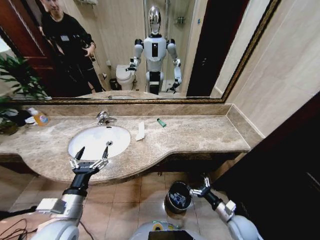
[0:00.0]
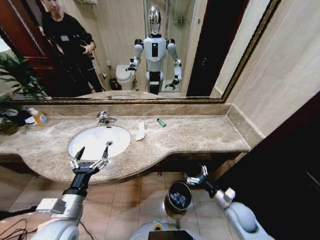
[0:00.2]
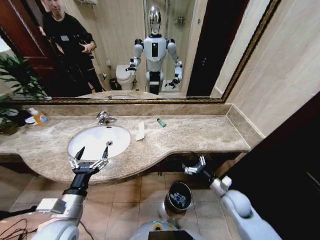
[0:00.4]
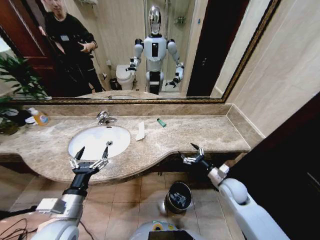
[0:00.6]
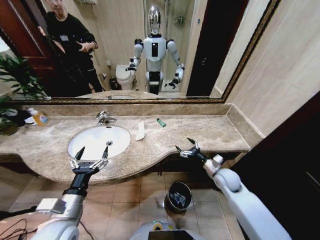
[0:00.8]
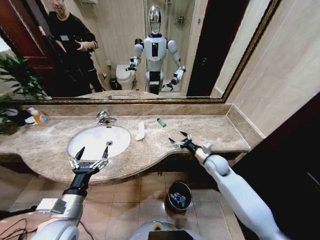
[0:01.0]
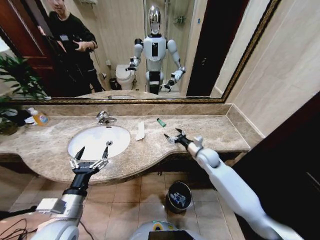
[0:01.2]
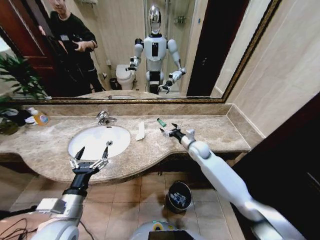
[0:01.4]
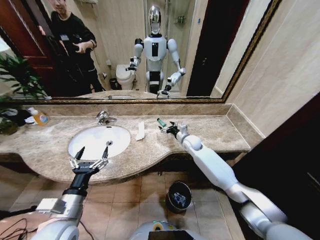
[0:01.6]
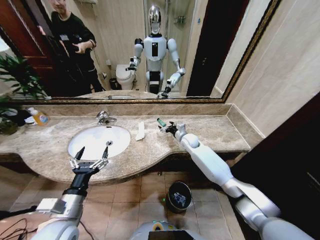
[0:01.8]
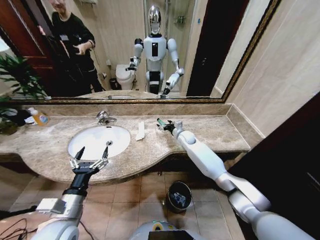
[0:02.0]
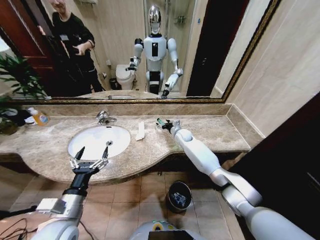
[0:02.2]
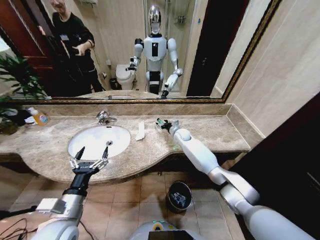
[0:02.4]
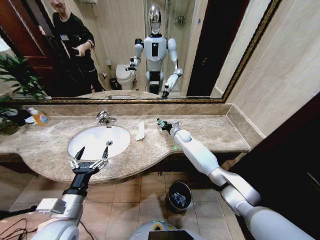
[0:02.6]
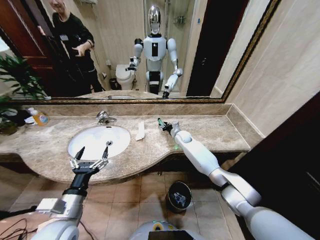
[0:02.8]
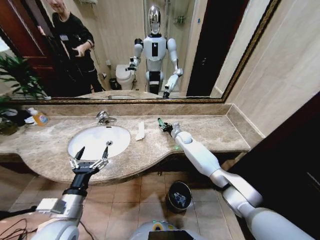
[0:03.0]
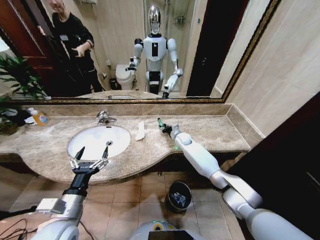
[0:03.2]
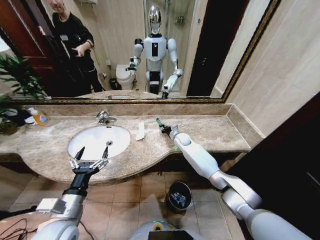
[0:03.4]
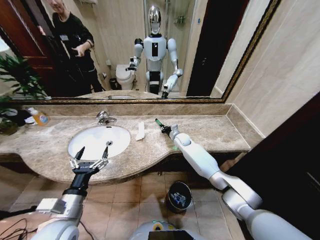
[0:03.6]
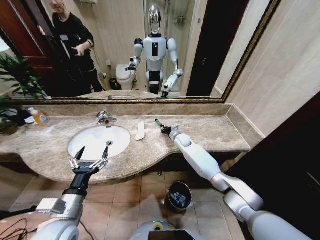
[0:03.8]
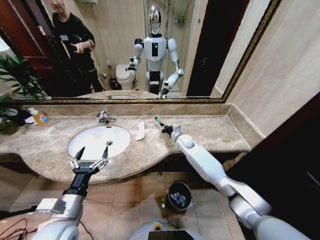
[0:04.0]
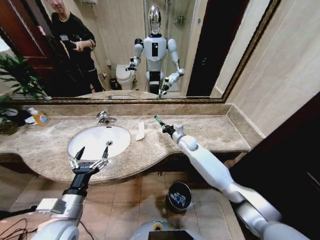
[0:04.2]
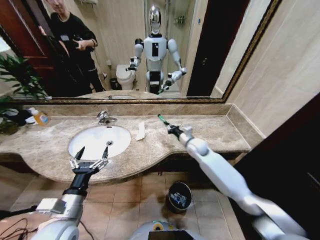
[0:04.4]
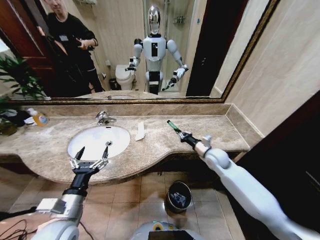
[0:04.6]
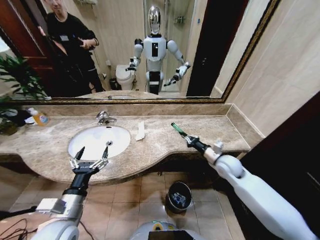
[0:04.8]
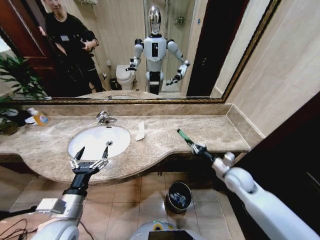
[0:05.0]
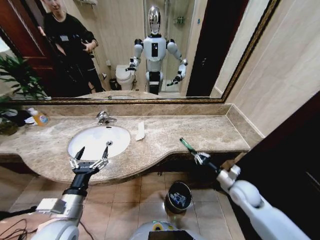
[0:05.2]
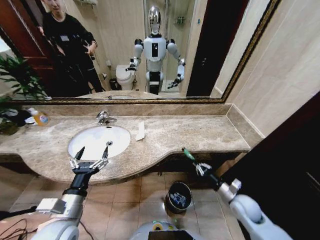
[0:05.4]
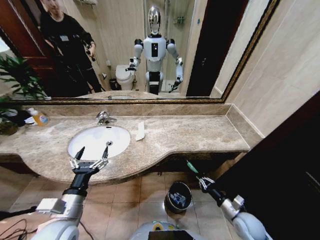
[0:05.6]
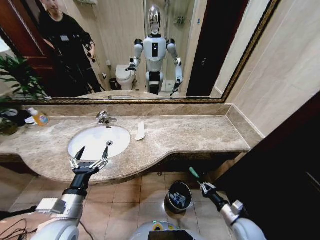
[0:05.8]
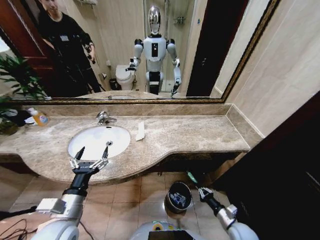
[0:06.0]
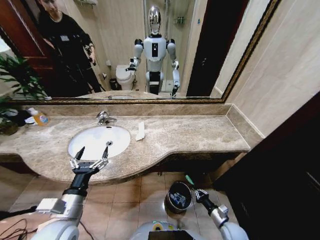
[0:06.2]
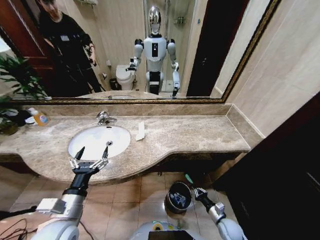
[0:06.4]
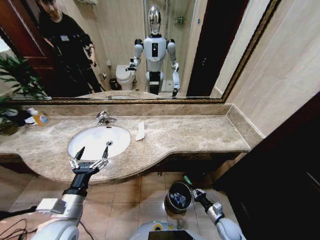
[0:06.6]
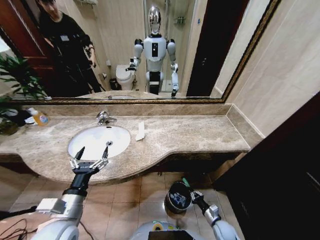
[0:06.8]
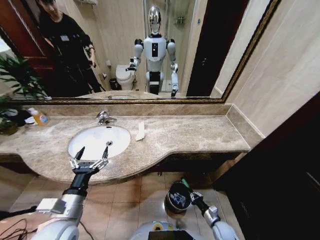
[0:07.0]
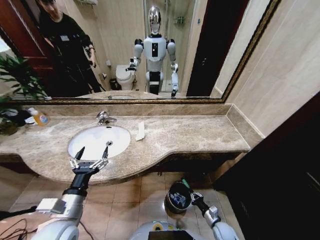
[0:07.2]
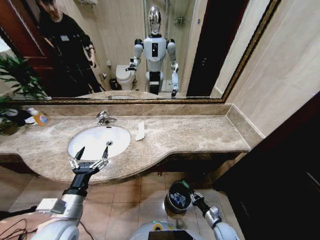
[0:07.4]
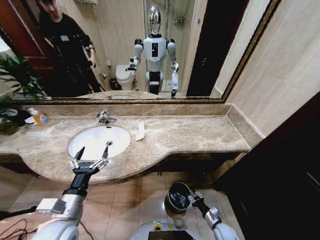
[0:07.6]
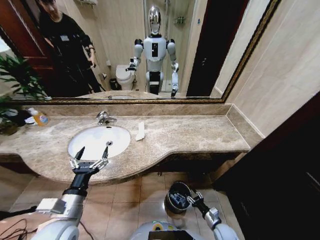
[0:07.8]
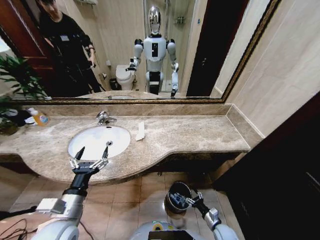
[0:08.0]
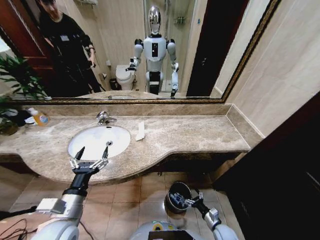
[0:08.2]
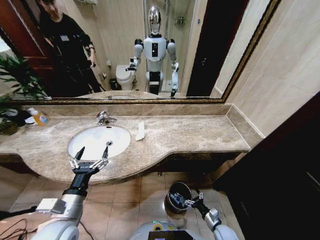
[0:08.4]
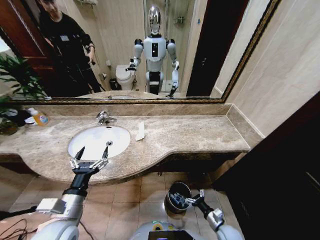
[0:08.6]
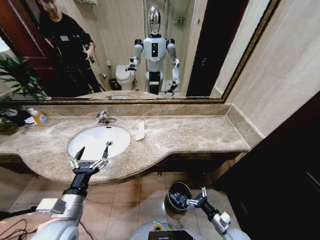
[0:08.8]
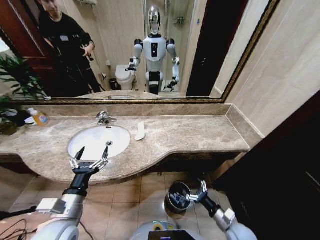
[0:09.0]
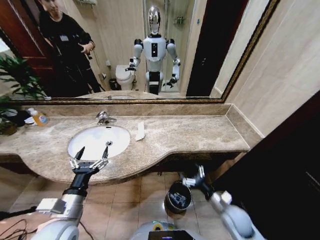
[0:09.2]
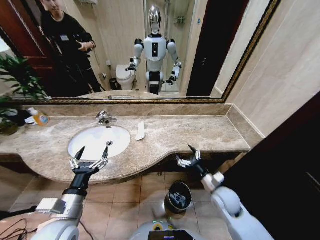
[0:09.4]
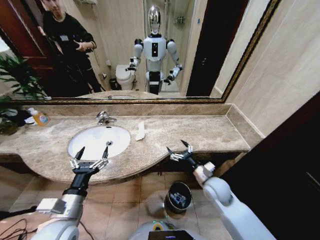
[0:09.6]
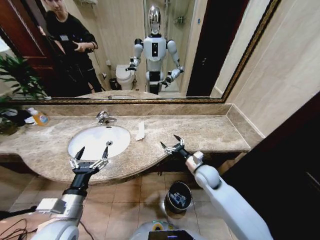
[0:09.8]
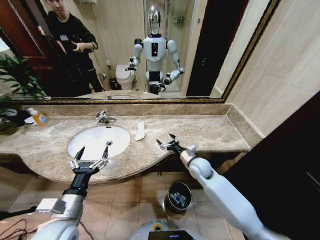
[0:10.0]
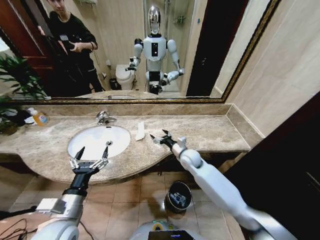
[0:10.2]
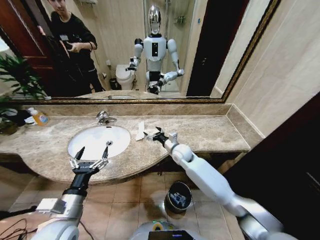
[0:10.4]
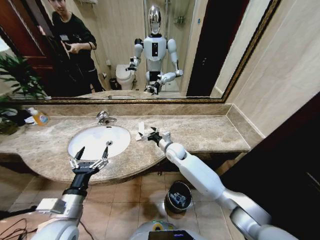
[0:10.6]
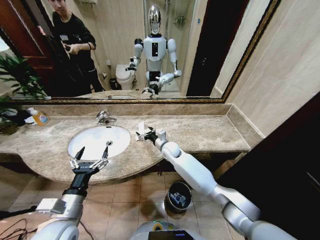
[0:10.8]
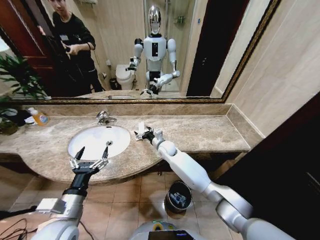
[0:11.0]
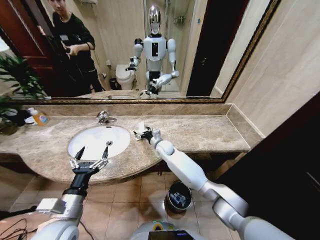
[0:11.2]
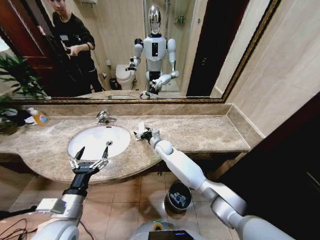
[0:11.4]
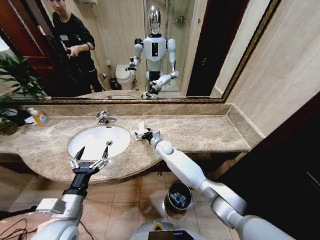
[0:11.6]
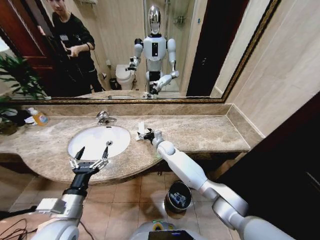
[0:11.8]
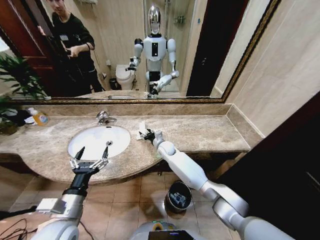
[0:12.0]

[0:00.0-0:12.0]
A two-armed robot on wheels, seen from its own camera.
Task of the whole recording: Pick up the trash from the sink and place it in the trash bin.
0:00.0 to 0:01.6: The right gripper moves forward, upward and to the left, approximately 40 cm.
0:01.6 to 0:03.0: The right gripper travels forward by some 5 cm, and closes.
0:03.0 to 0:04.4: The right gripper shifts some 15 cm backward and upward, and closes.
0:04.4 to 0:06.0: The right gripper heads backward, downward and to the right, covering approximately 40 cm.
0:06.0 to 0:07.6: The right gripper goes about 10 cm downward.
0:07.6 to 0:09.0: The right gripper shifts some 15 cm upward, and opens up.
0:09.0 to 0:10.4: The right gripper travels forward, to the left and upward by some 40 cm.
0:10.4 to 0:12.0: The right gripper travels to the left and forward by roughly 10 cm.

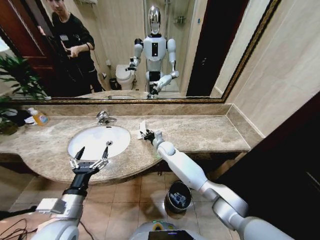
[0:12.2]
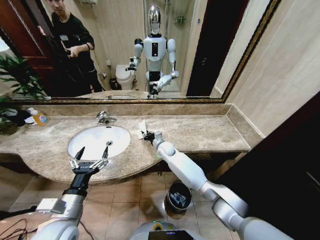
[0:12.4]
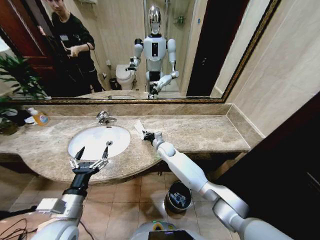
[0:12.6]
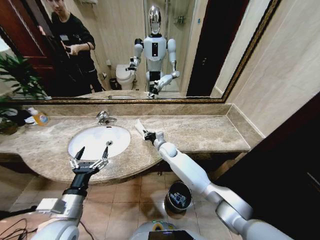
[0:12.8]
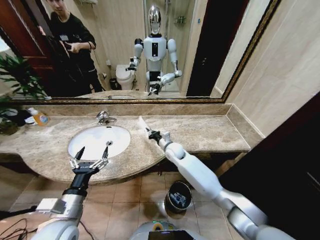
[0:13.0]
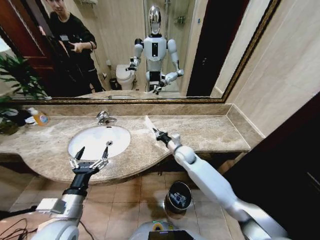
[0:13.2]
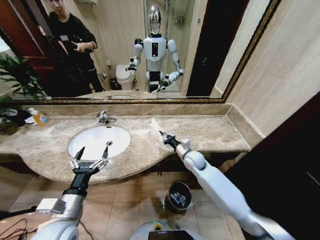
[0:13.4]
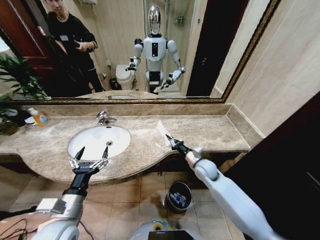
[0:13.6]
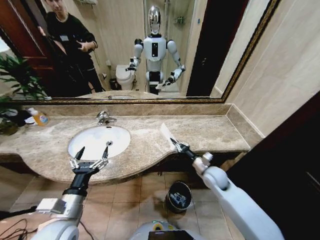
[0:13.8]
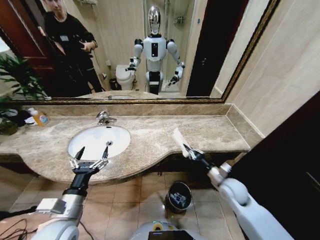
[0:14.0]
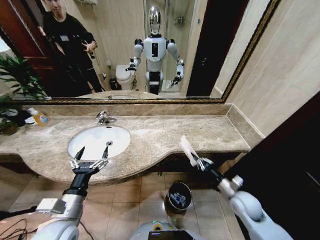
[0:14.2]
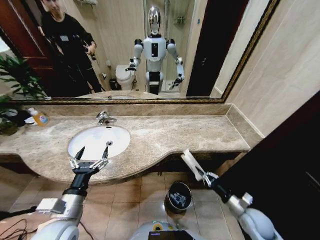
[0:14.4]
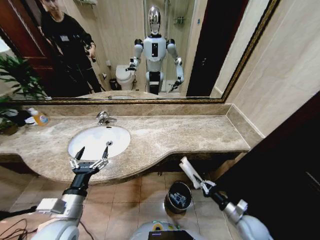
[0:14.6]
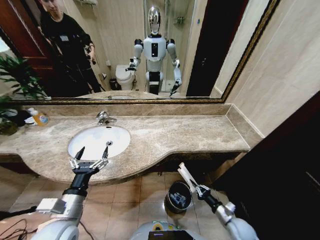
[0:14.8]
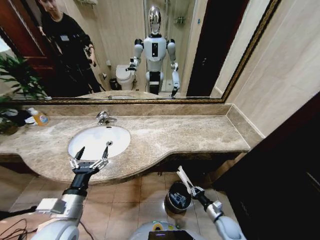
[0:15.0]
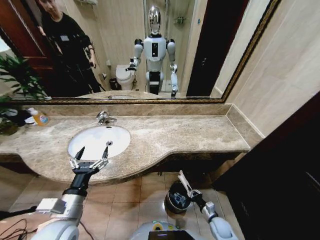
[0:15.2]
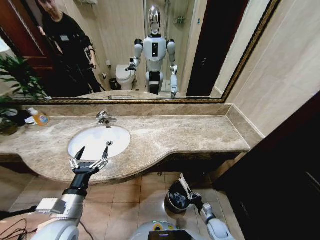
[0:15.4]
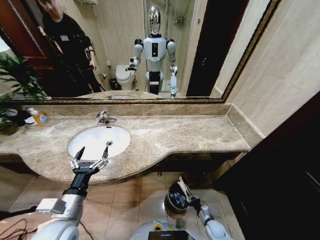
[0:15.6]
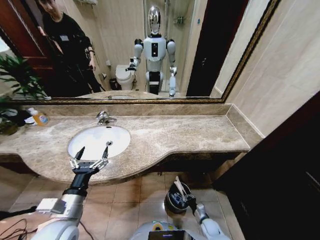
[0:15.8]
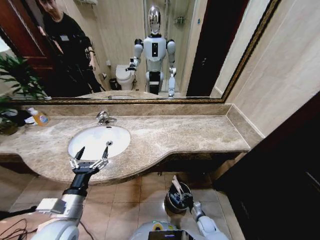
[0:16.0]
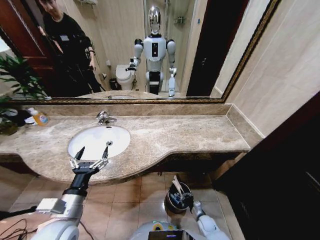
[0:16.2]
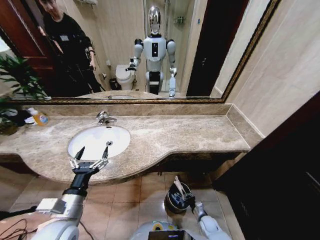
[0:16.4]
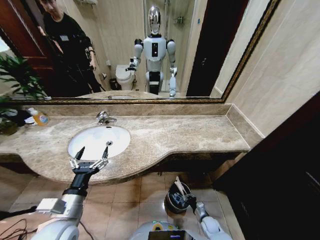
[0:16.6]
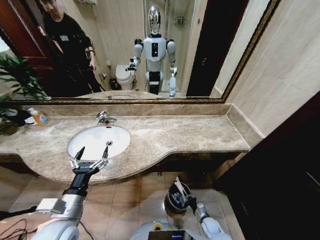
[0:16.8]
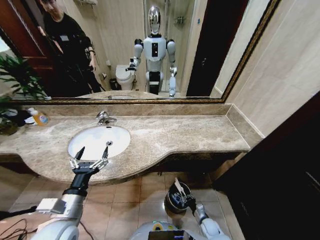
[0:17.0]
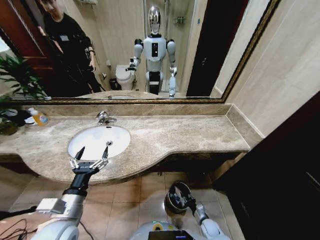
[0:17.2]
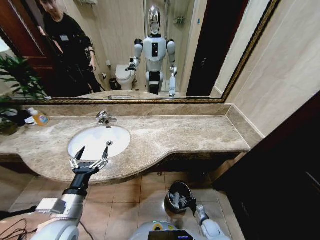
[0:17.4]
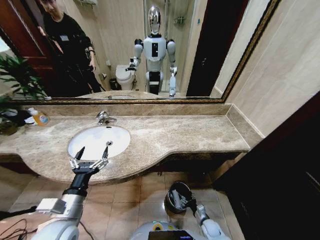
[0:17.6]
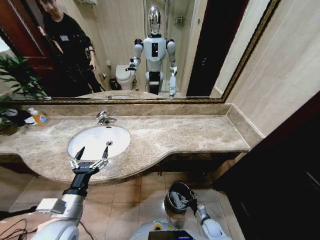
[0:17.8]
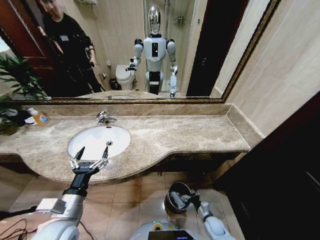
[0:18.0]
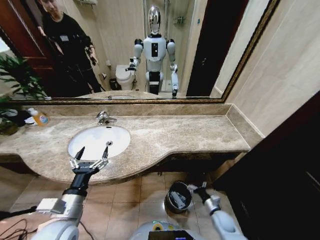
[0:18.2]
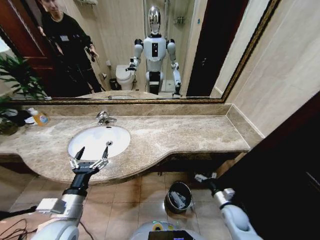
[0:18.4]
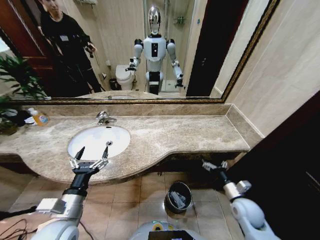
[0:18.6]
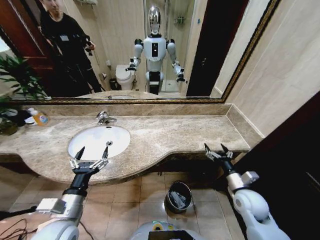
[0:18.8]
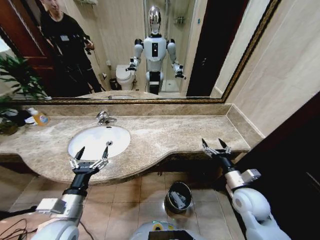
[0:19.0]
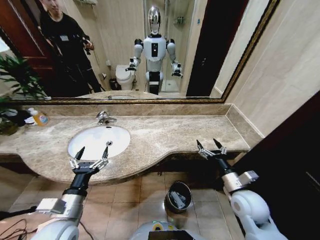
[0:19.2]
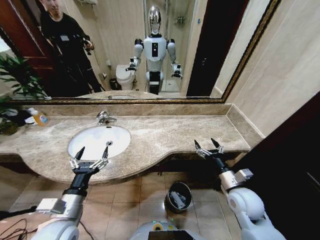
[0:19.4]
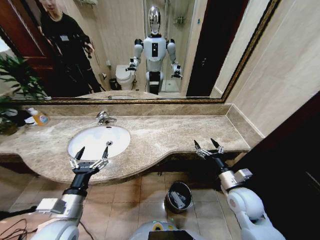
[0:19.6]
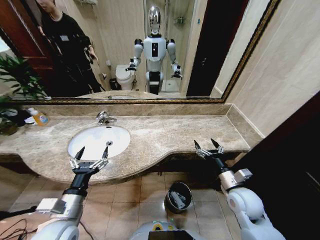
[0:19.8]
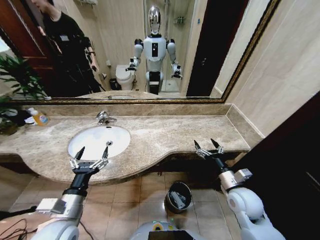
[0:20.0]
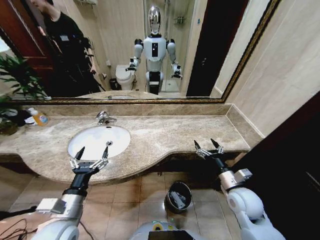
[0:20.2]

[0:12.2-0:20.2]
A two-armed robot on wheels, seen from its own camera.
Task of the whole recording: Pick up the trash from the sink and place it in the trash bin.
0:12.2 to 0:13.8: The right gripper travels to the right and backward by about 30 cm, and closes.
0:13.8 to 0:15.4: The right gripper moves downward and backward, some 30 cm.
0:15.4 to 0:17.0: The grippers stay close to where they were, moving slightly.
0:17.0 to 0:18.6: The right gripper is displaced upward by some 25 cm, and opens its fingers.
0:18.6 to 0:20.2: The right gripper travels upward and to the left by approximately 10 cm.
